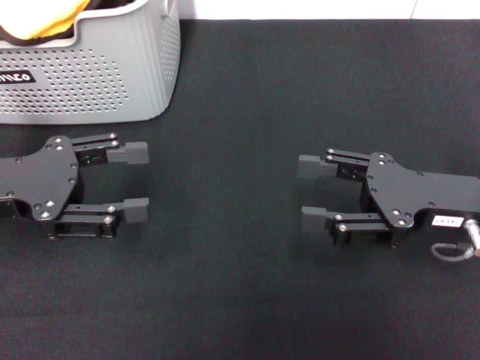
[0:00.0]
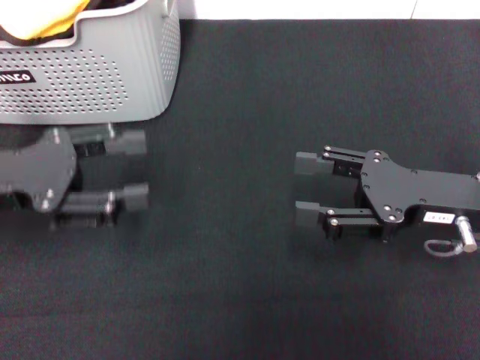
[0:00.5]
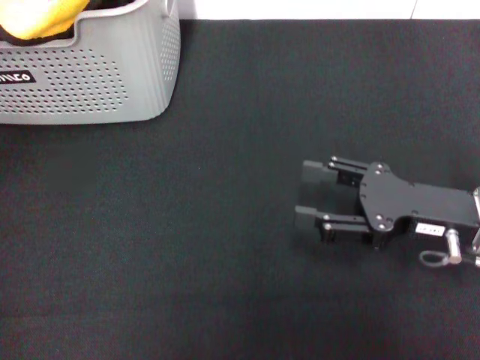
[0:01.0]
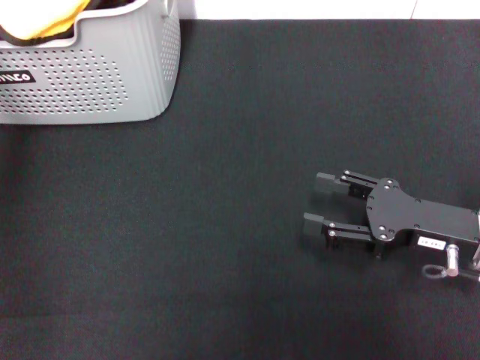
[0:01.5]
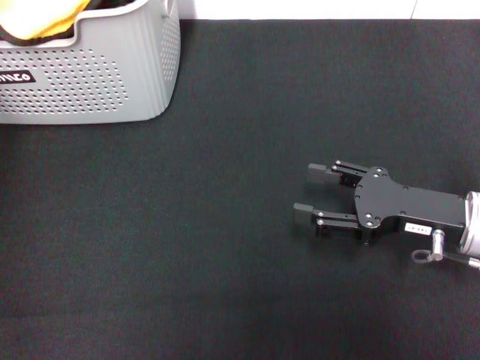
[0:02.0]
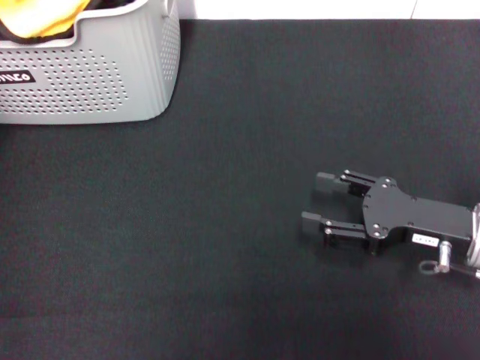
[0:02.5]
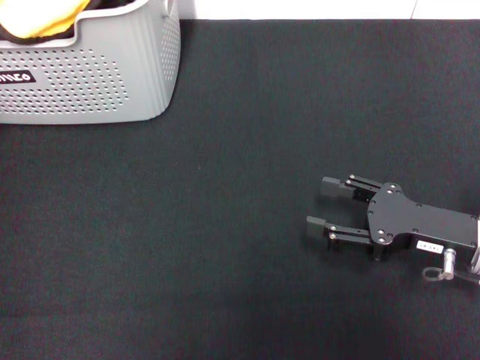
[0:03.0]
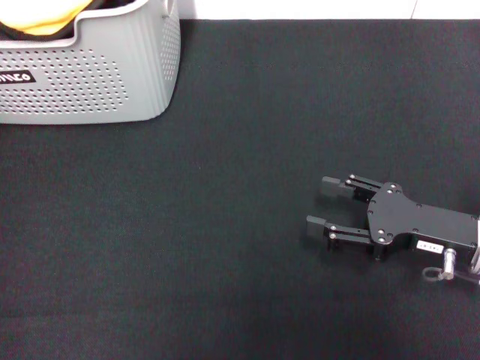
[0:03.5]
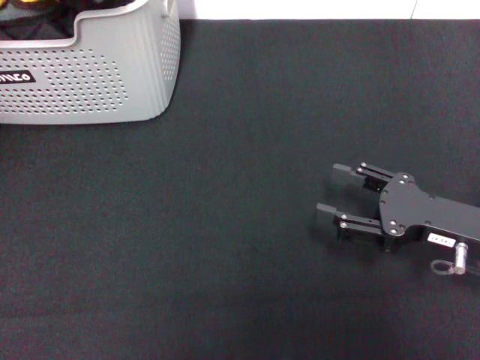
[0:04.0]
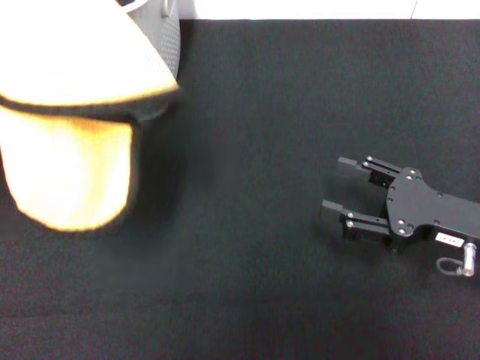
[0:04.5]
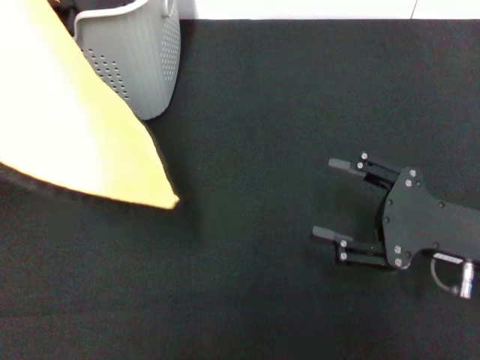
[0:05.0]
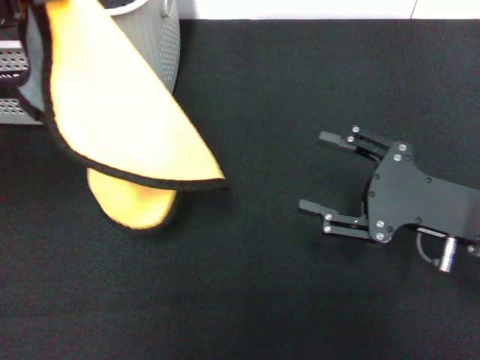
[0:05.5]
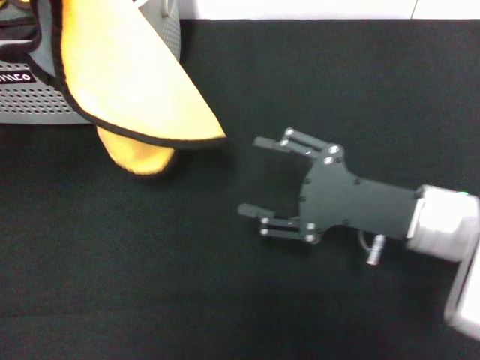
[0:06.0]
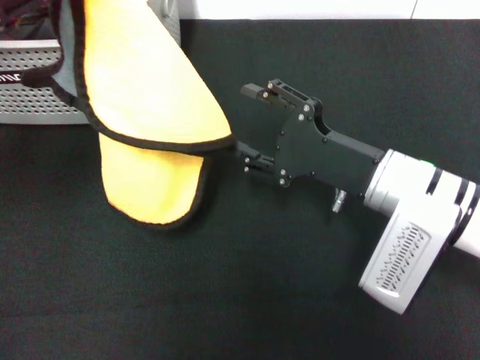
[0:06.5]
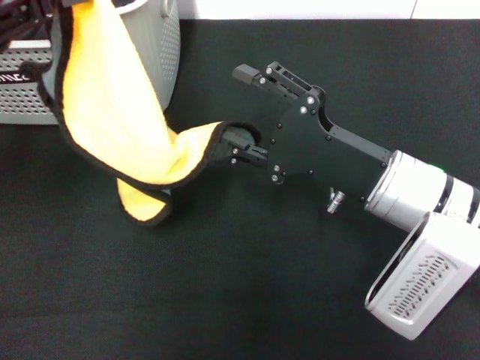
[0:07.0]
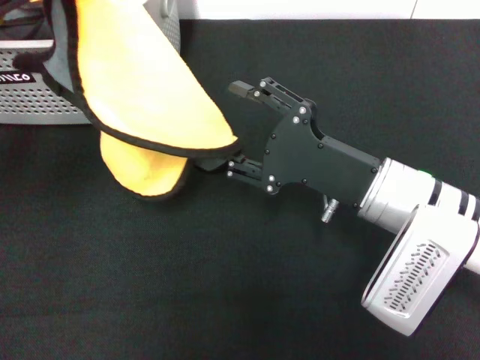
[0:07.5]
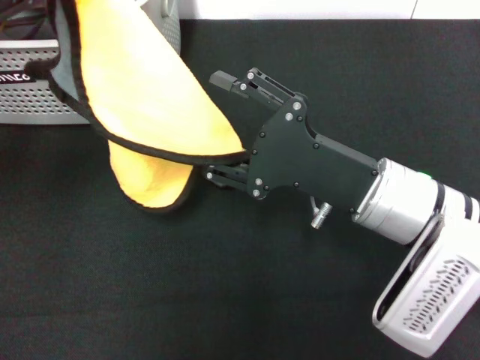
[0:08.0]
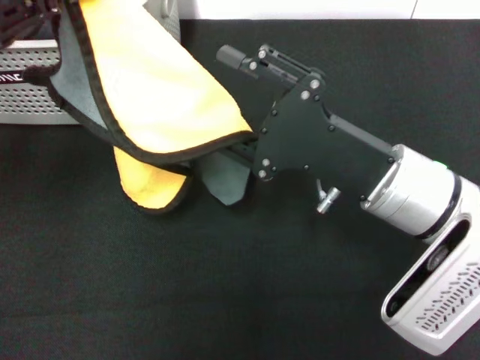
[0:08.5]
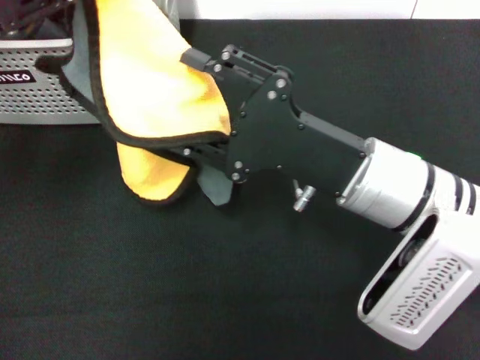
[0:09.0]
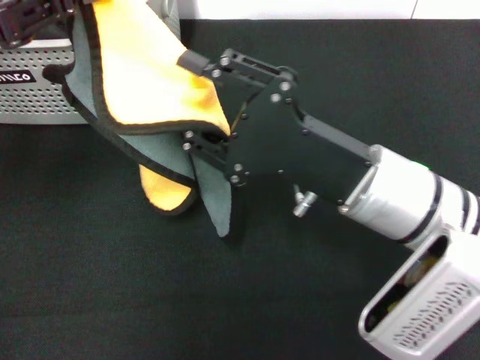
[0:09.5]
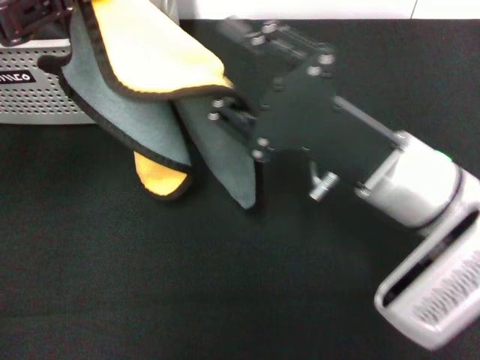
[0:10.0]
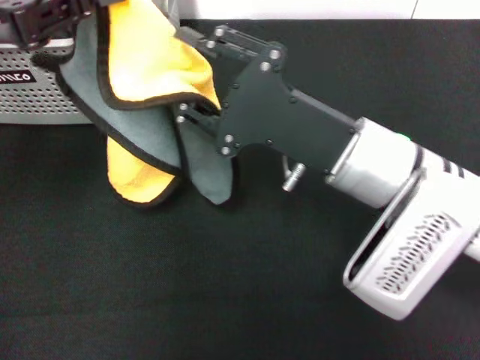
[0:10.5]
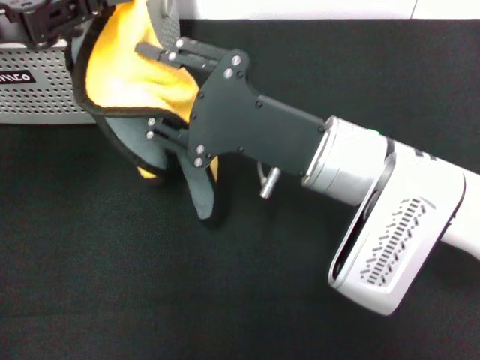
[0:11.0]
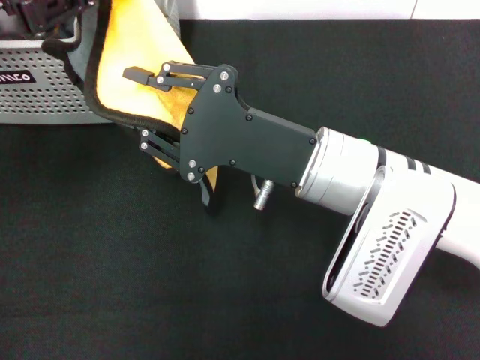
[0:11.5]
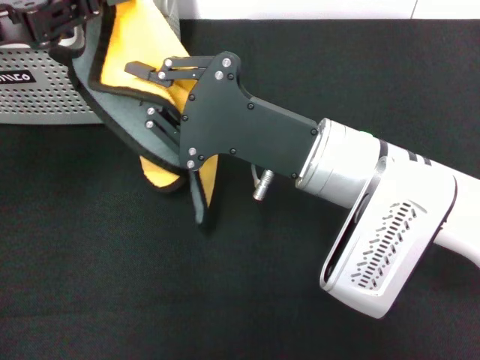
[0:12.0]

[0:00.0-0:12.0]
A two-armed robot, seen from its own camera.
Task of the whole recording: pick up the towel from the storage box and lay it flat on the black tablecloth.
Step, 0:00.0 to 0:03.0: Pick up a towel with the left gripper.
0:00.0 to 0:02.0: The left gripper moves upward and forward, roughly 15 cm.
0:02.0 to 0:04.0: The left gripper moves upward and backward, some 10 cm, and closes.
0:04.0 to 0:06.0: The left gripper is displaced downward by some 10 cm. Meanwhile the right gripper heads to the left, covering approximately 5 cm.
0:06.0 to 0:08.0: The right gripper shifts by roughly 5 cm.

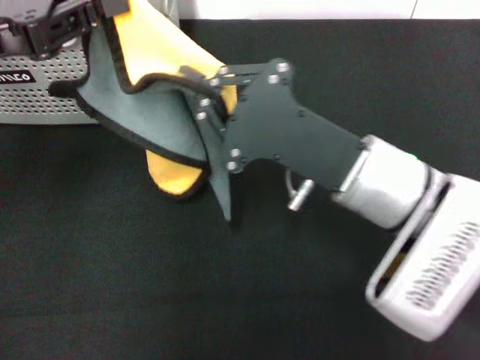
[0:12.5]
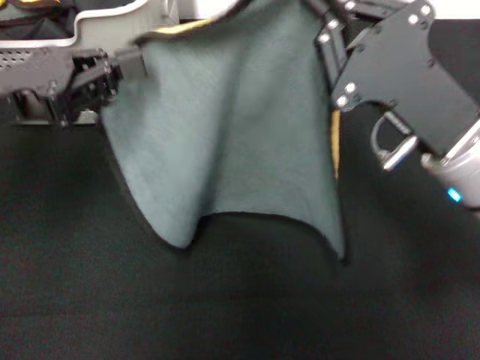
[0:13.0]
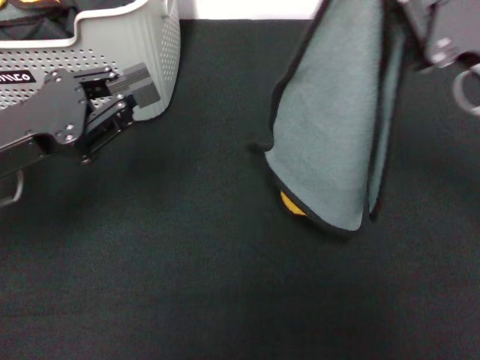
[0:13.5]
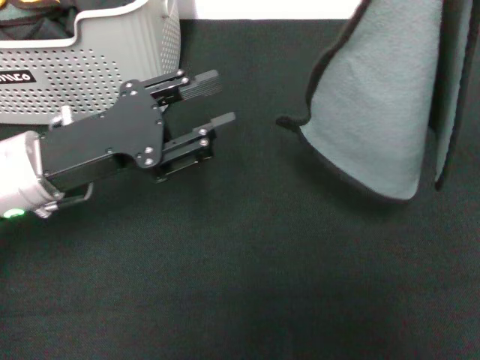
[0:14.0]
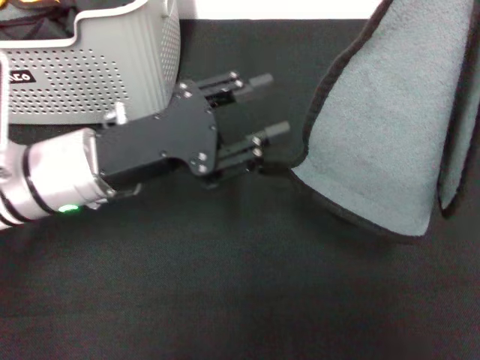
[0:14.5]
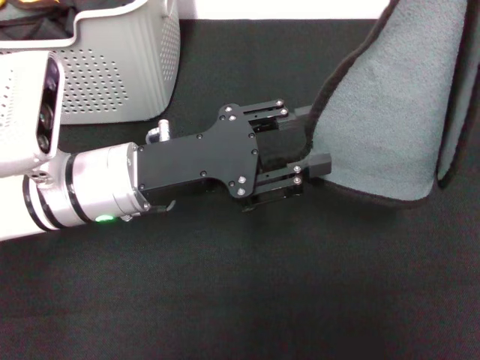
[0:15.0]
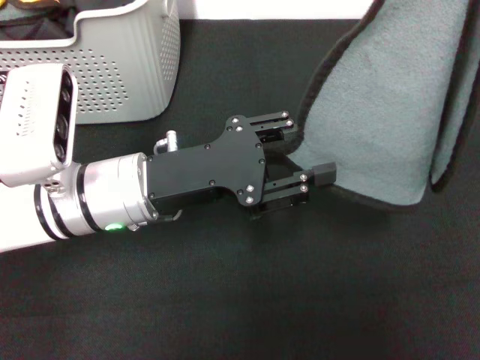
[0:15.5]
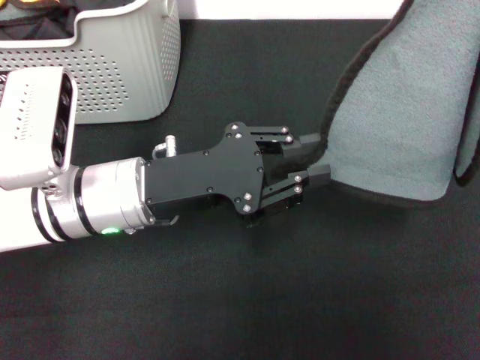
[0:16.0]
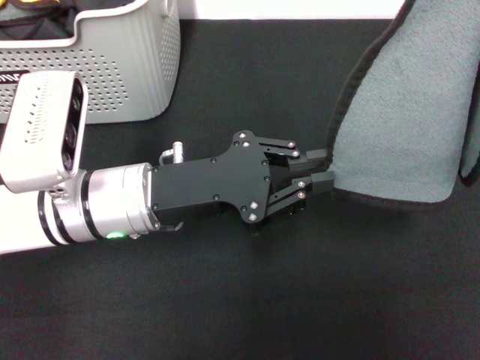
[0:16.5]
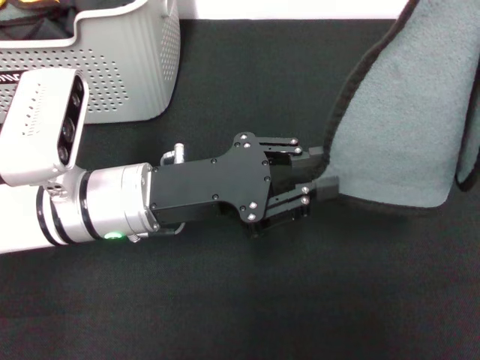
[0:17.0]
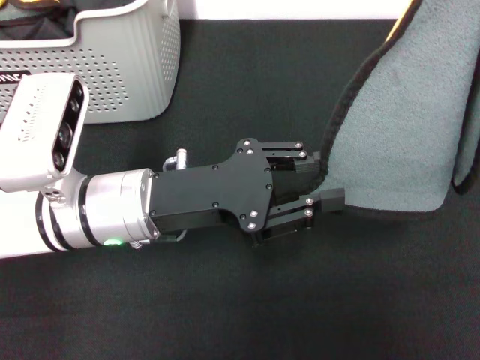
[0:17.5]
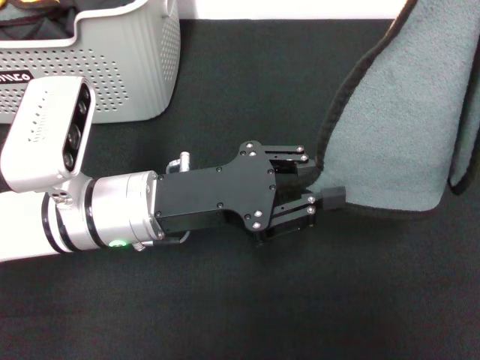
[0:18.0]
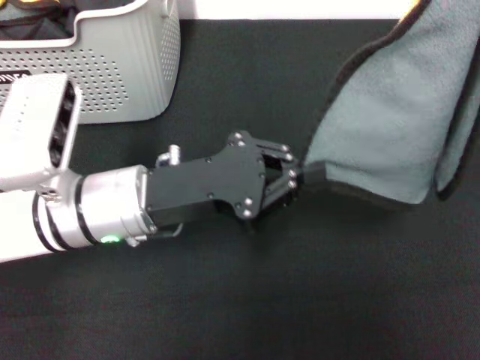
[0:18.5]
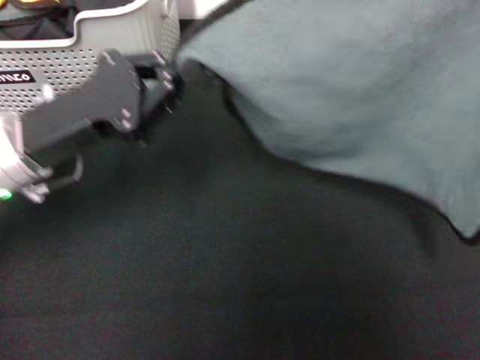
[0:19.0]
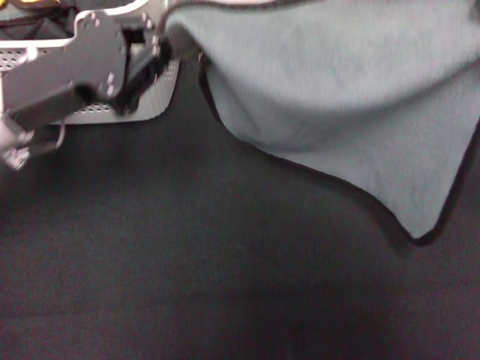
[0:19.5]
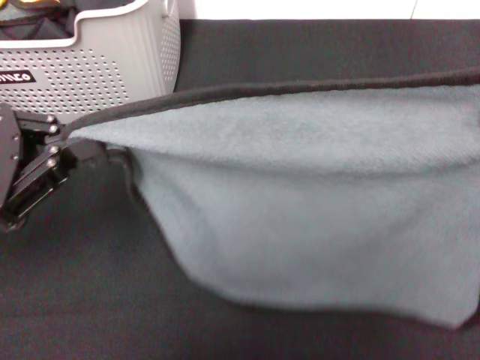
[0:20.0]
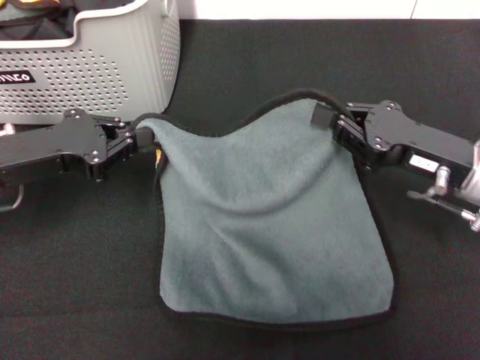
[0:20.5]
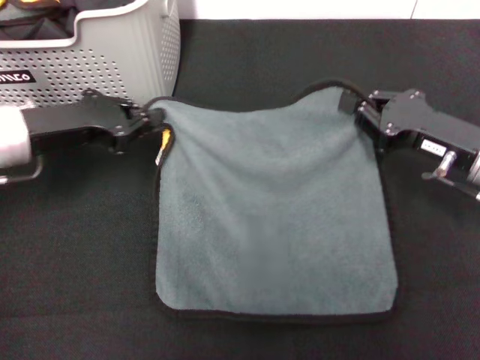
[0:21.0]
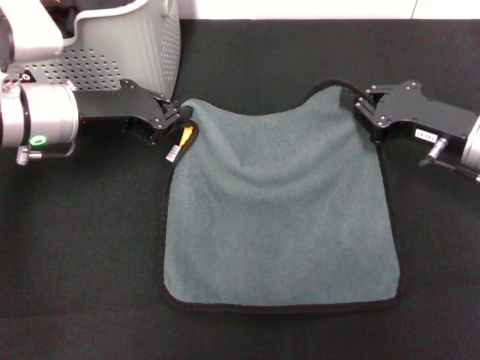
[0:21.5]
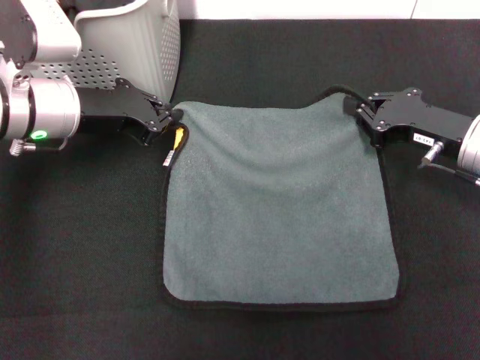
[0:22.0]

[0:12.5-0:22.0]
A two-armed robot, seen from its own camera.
Task of the whole recording: pick up the towel from the storage box and lay it flat on the black tablecloth.
0:12.5 to 0:14.5: The left gripper goes some 15 cm downward and to the right, and opens its fingers. Meanwhile the right gripper shifts roughly 20 cm to the right and upward.
0:14.5 to 0:16.5: The left gripper closes up.
0:16.5 to 0:18.0: There are only small adjustments of the grippers.
0:18.0 to 0:20.0: The left gripper is displaced to the left by roughly 15 cm, and closes. Meanwhile the right gripper goes roughly 10 cm backward and downward.
0:20.0 to 0:22.0: The right gripper is displaced forward and downward by approximately 15 cm; the left gripper moves forward and to the right, roughly 15 cm.

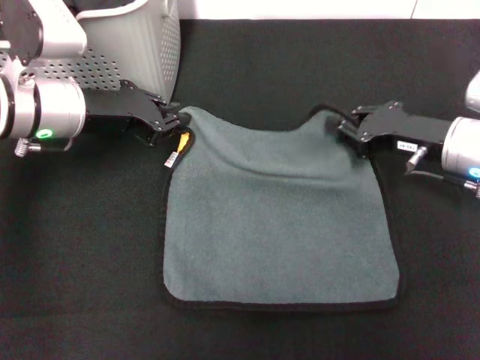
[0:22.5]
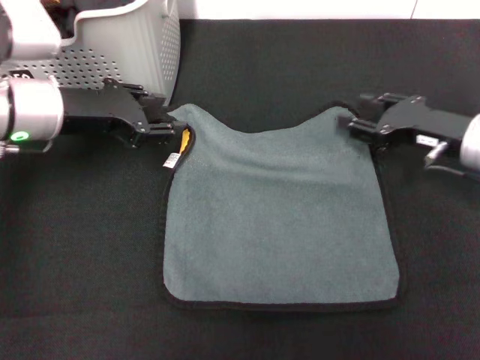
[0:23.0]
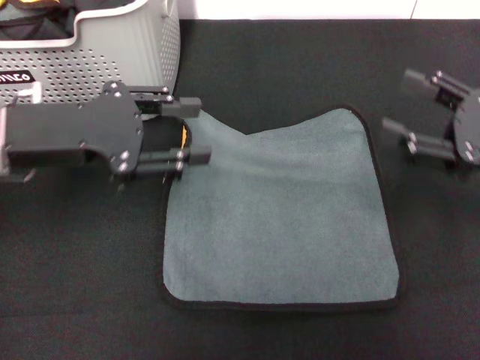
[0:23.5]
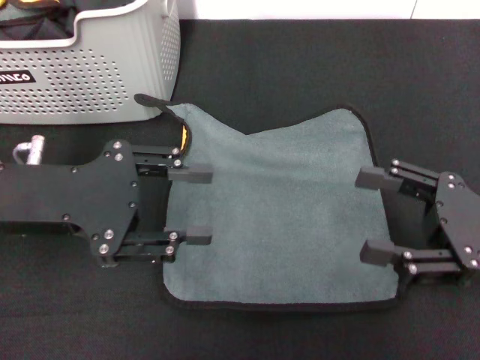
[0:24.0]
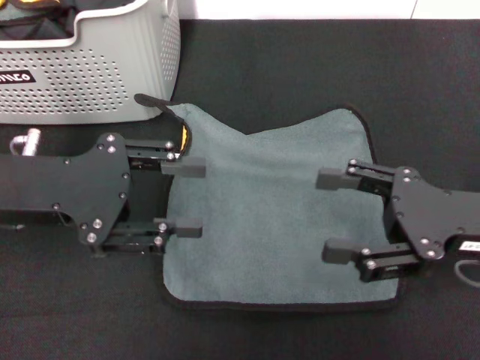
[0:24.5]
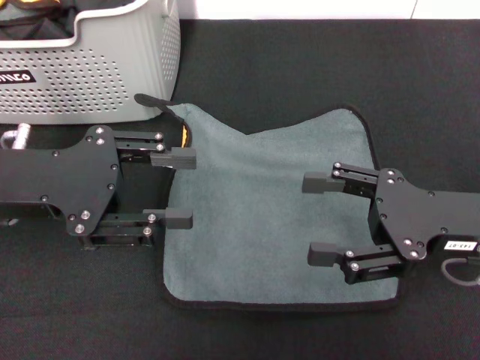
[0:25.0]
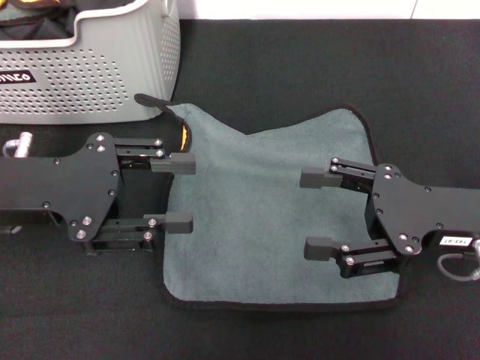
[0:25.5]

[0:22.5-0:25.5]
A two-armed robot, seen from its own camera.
Task of the whole recording: pick up the towel from the storage box and lay it flat on the black tablecloth.
0:22.5 to 0:24.0: The grippers both shift backward by approximately 10 cm. The right gripper opens. The left gripper opens.
0:24.0 to 0:25.5: The grippers move only a little.
